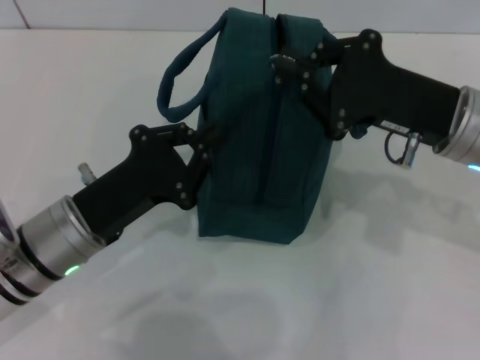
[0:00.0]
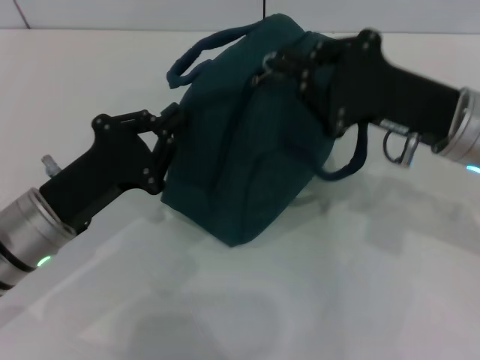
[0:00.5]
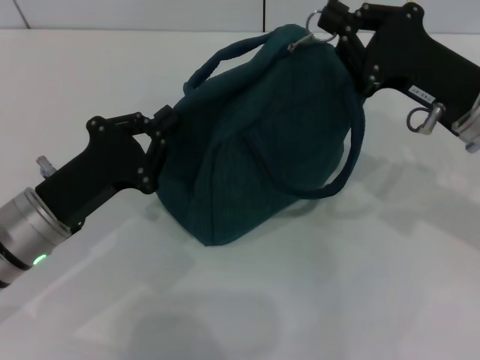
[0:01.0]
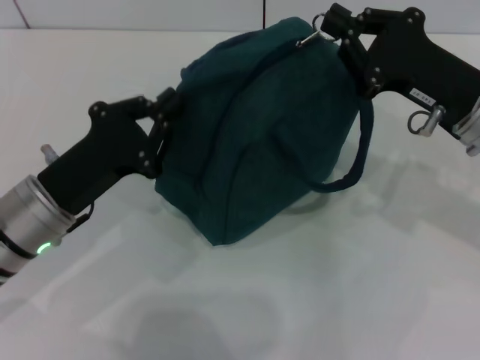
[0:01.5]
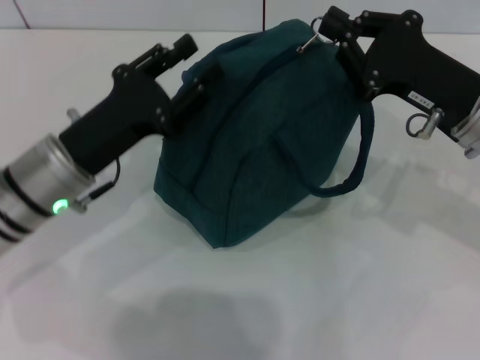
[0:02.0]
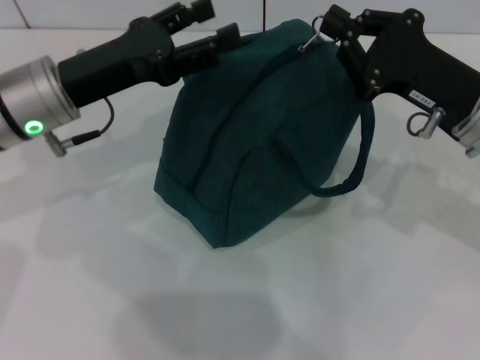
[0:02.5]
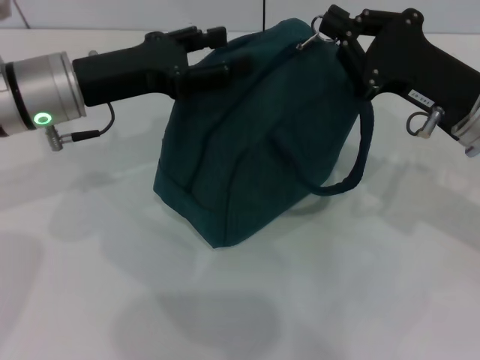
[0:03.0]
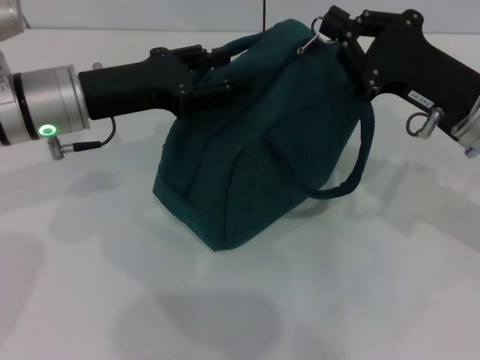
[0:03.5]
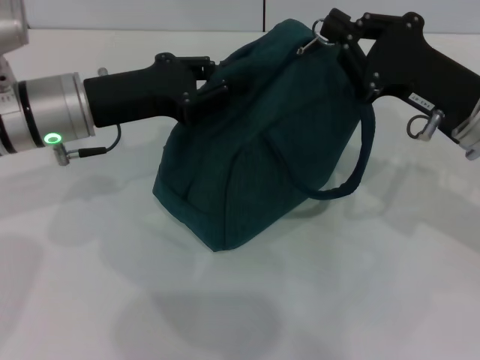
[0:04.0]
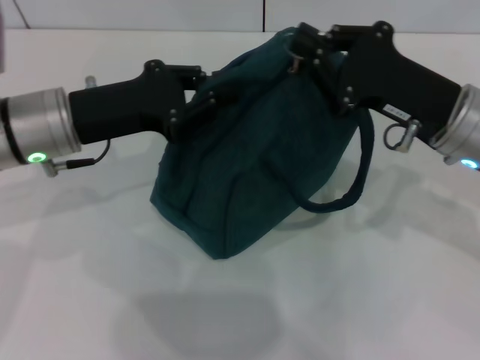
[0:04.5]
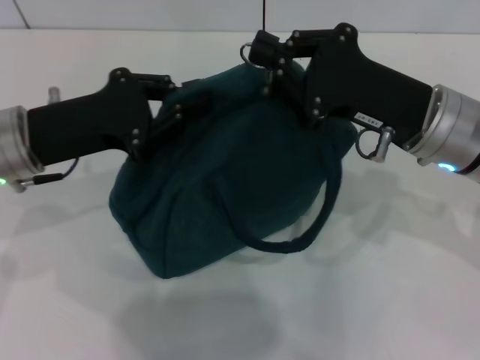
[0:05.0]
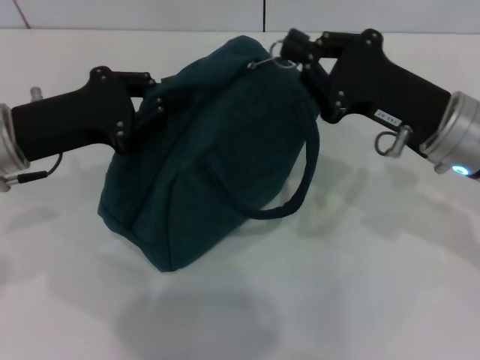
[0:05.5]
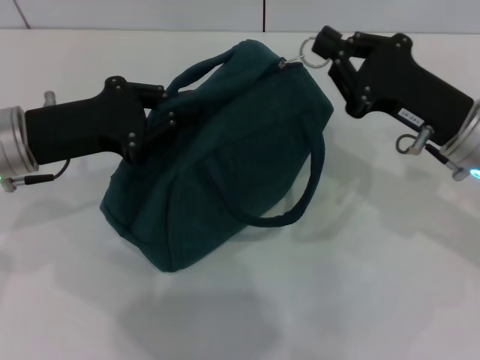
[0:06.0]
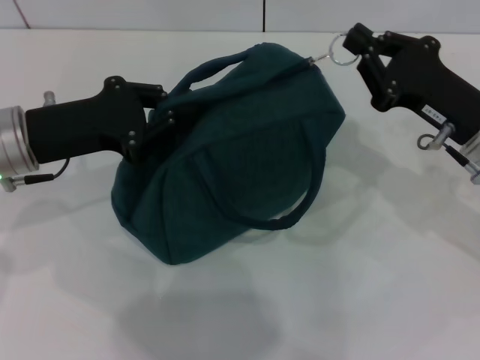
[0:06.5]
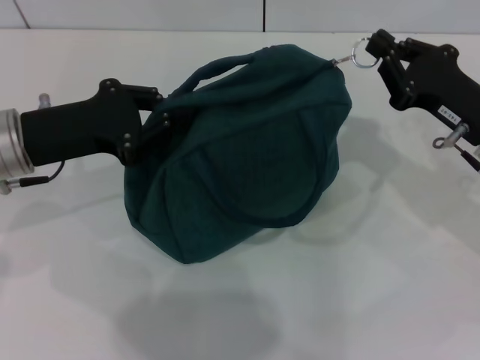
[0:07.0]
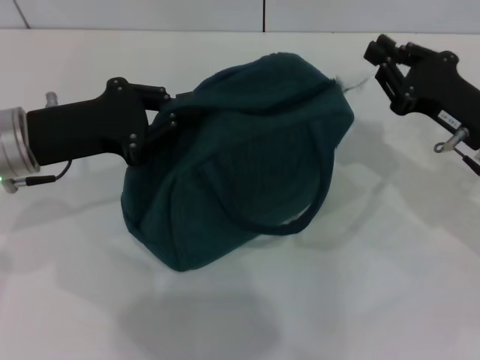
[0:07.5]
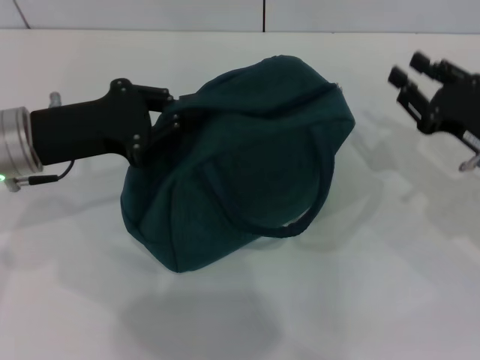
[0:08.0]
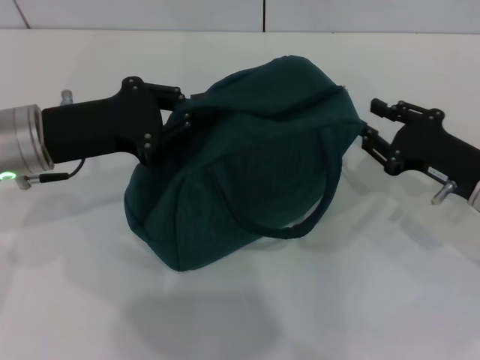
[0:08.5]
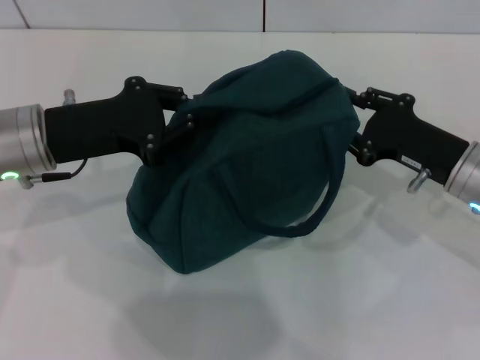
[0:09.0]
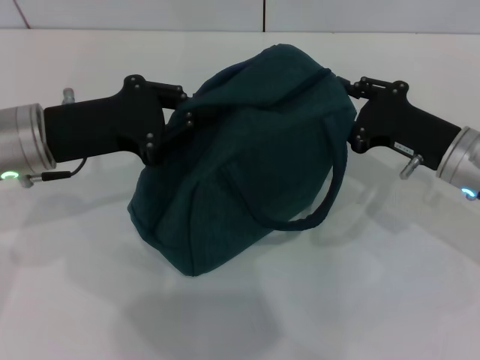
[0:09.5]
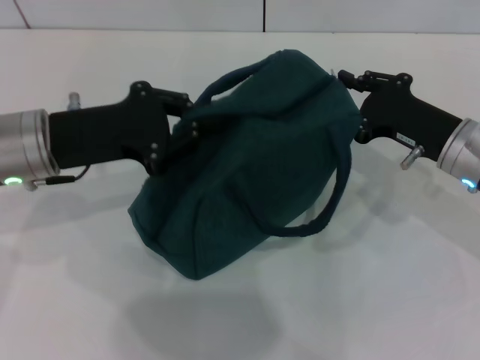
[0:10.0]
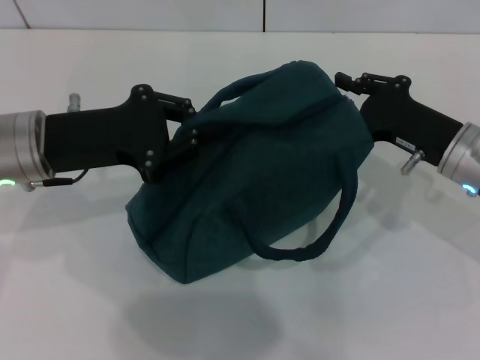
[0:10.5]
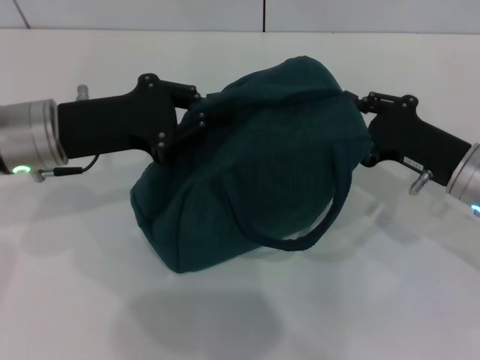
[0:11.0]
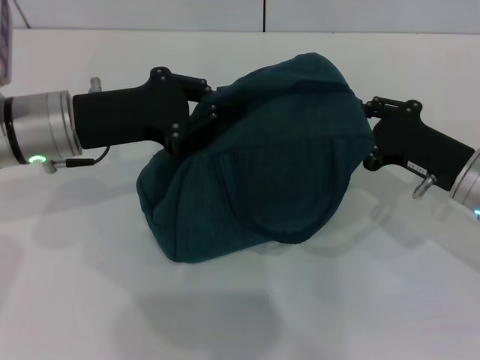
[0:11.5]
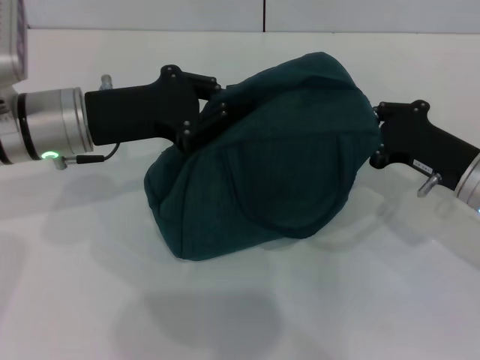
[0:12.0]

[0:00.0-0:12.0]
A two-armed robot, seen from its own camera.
2.0 to 4.0 s: The left gripper shifts roughly 5 cm forward, and opens and closes again.
4.0 to 6.0 s: The left gripper ends up roughly 5 cm from where it was.
6.0 to 8.0 s: The right gripper shifts some 5 cm to the right, and opens.
8.0 to 10.0 s: The right gripper moves to the left, roughly 5 cm.
10.0 to 12.0 s: The grippers make only small movements.

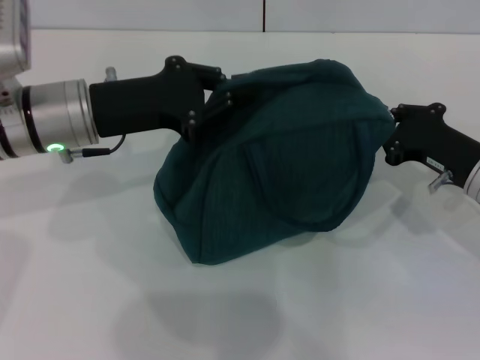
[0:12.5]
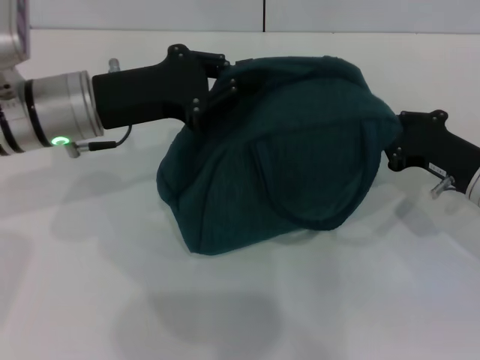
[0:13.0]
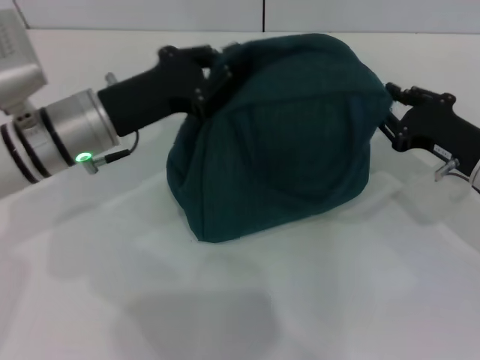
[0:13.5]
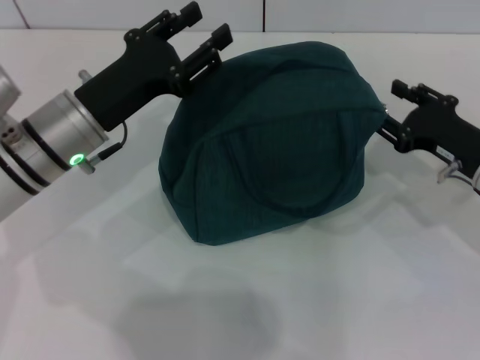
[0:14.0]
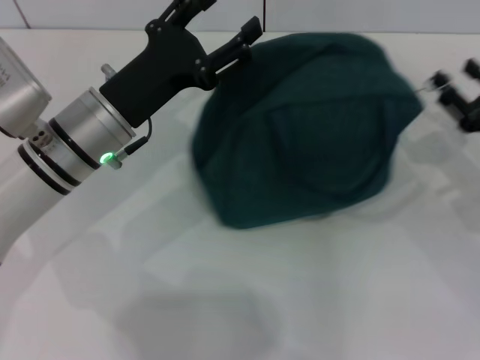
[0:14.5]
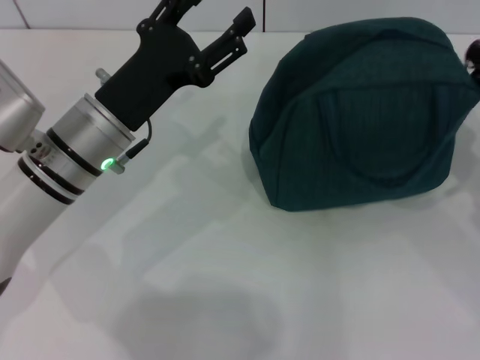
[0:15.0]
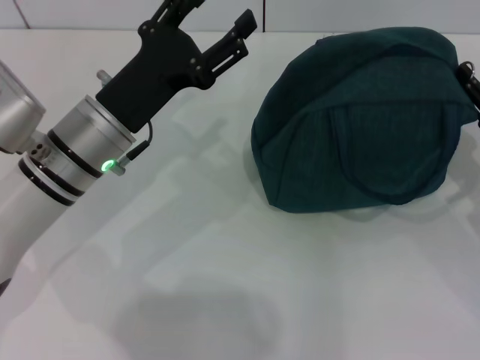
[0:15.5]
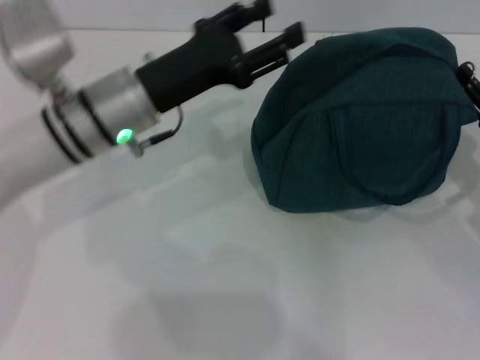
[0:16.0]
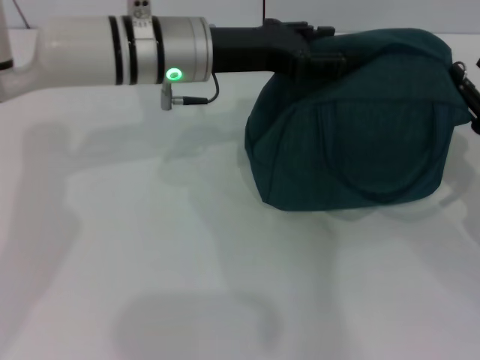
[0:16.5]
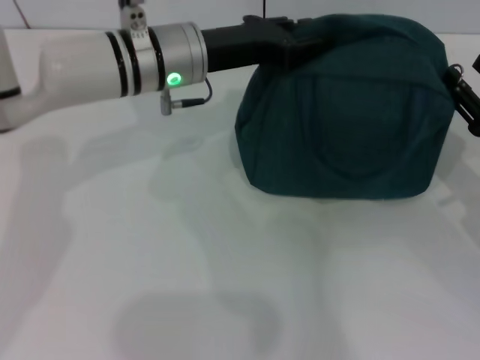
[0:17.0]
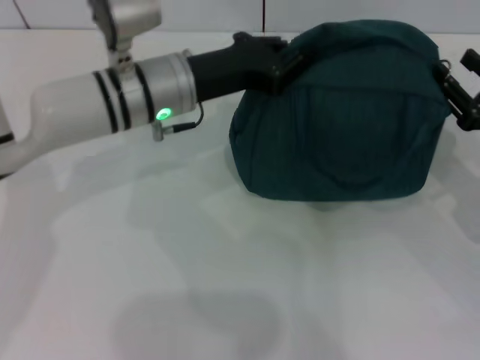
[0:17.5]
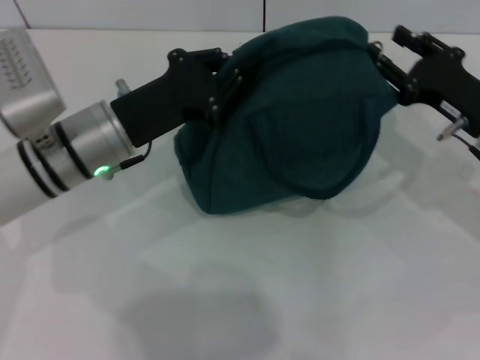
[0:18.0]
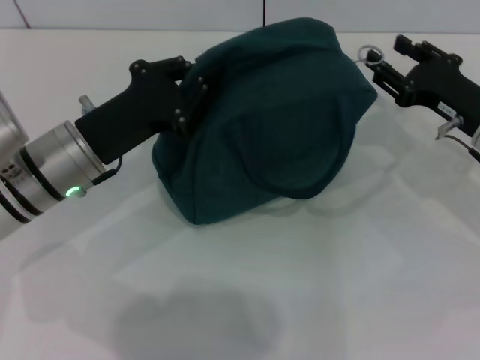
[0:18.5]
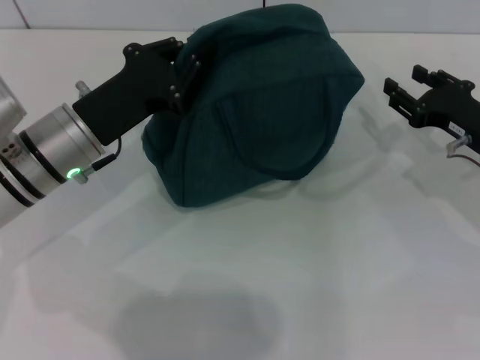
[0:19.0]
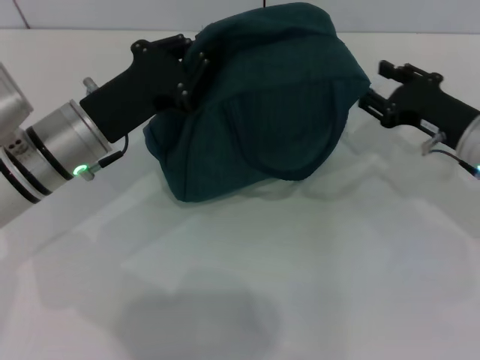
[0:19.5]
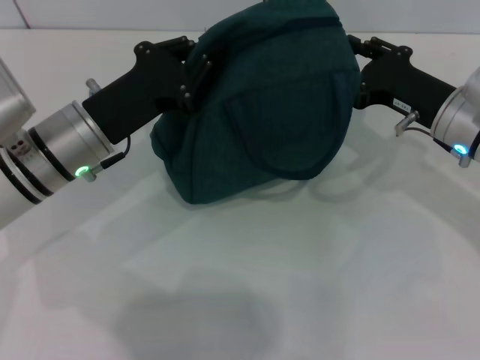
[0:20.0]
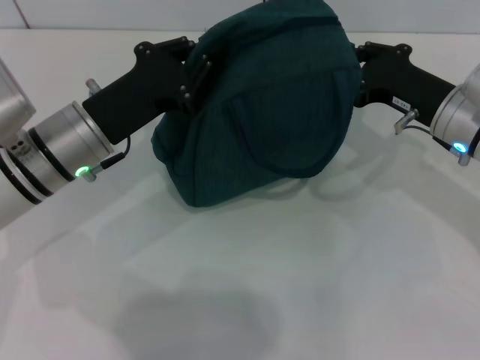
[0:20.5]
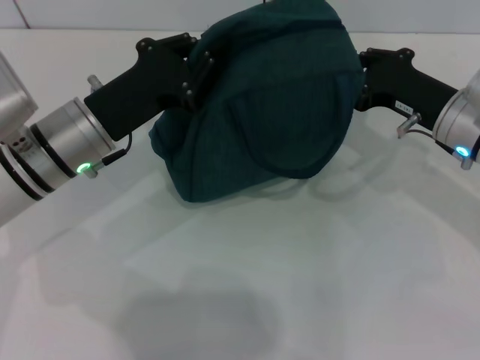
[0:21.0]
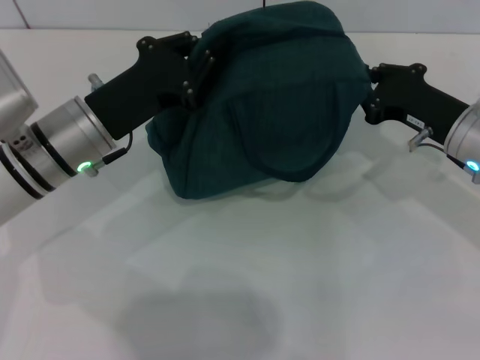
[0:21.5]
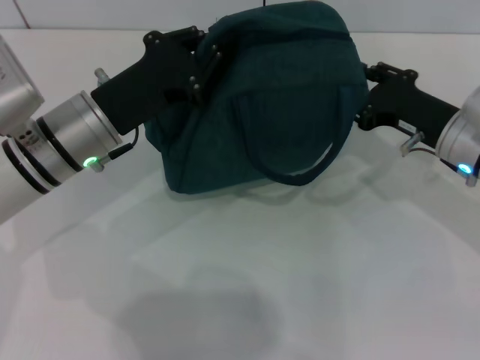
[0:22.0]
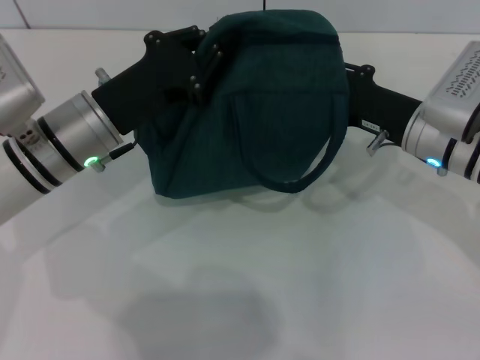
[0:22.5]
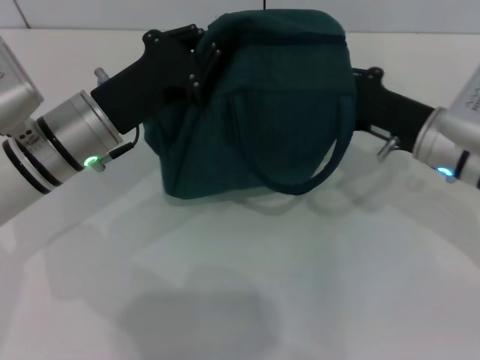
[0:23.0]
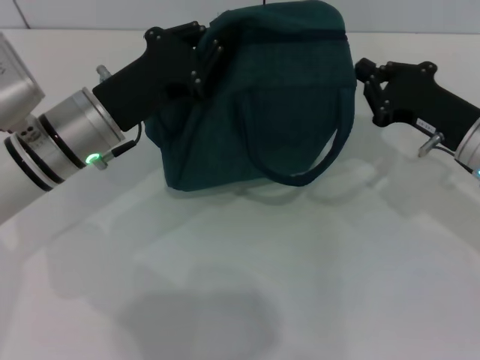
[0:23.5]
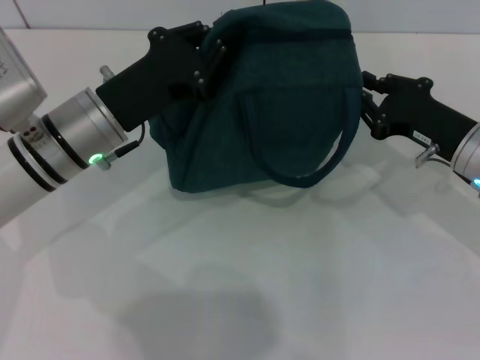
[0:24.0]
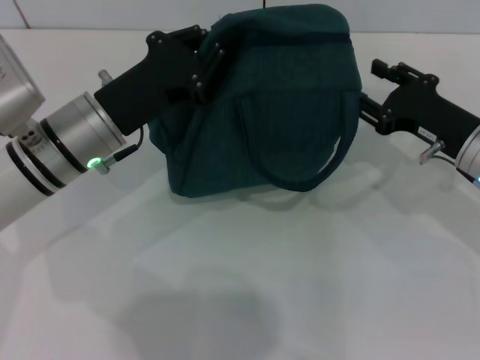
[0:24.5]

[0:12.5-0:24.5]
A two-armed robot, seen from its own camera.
Step, 14.0 to 18.5 s: Zip up the lunch bag with your right hand.
12.5 to 14.5 s: The right gripper shifts some 5 cm to the right, and opens. The left gripper opens its fingers.
14.5 to 16.5 s: The left gripper travels forward, to the right and upward by roughly 10 cm.
16.5 to 18.5 s: The left gripper travels backward, to the left and downward by roughly 15 cm, and closes up. The right gripper travels to the left and forward by approximately 10 cm.
18.5 to 20.5 s: The grippers stay close to where they were, moving slightly.
20.5 to 22.5 s: The grippers stay close to where they were, moving slightly.
22.5 to 24.5 s: The right gripper is displaced to the right by roughly 5 cm, and closes, then opens again.

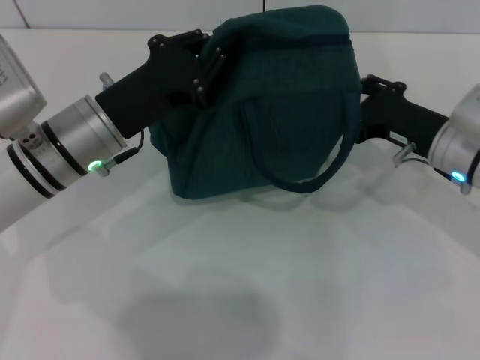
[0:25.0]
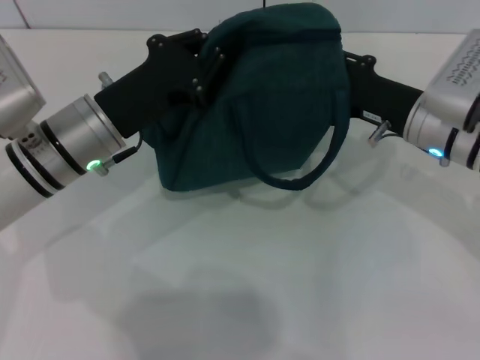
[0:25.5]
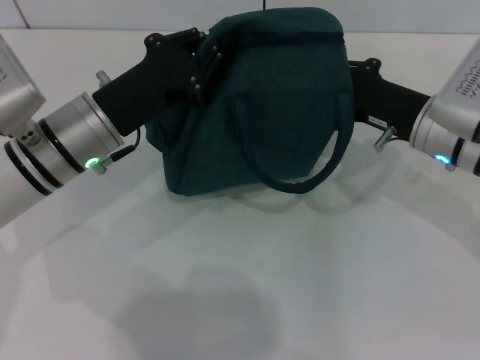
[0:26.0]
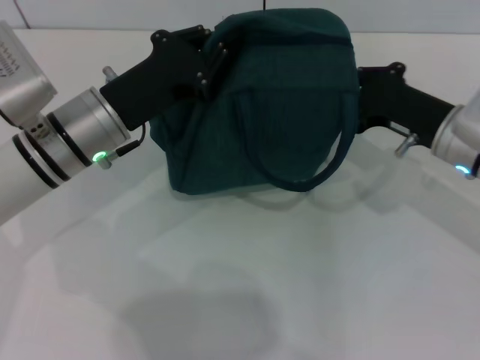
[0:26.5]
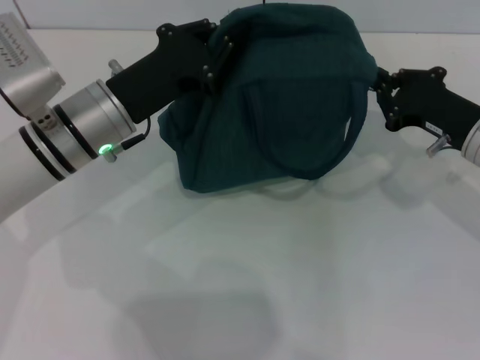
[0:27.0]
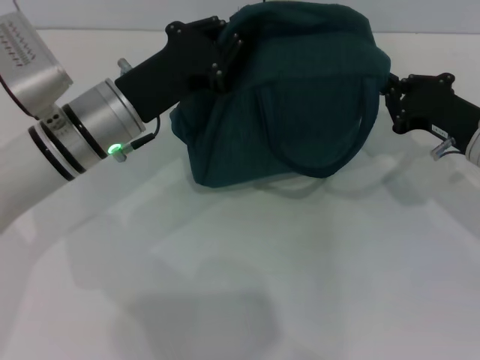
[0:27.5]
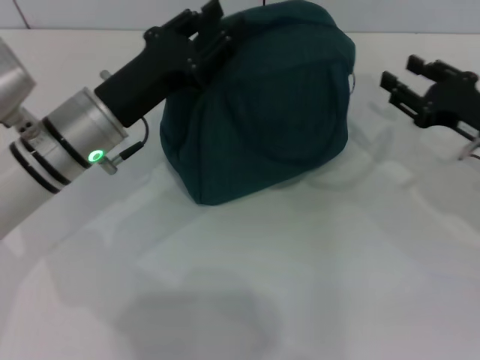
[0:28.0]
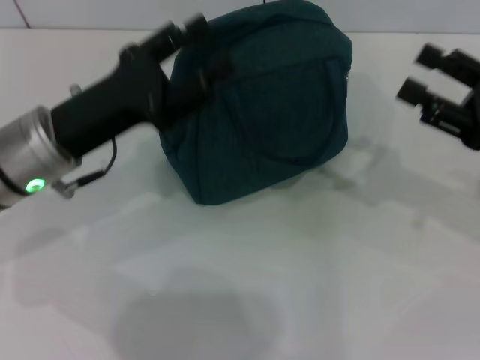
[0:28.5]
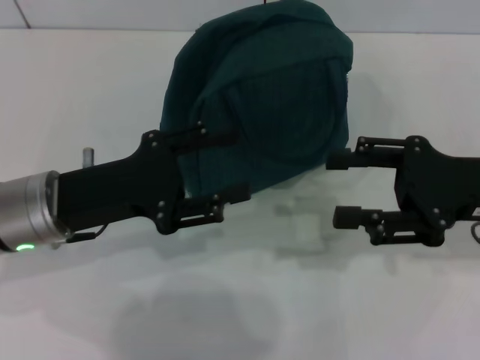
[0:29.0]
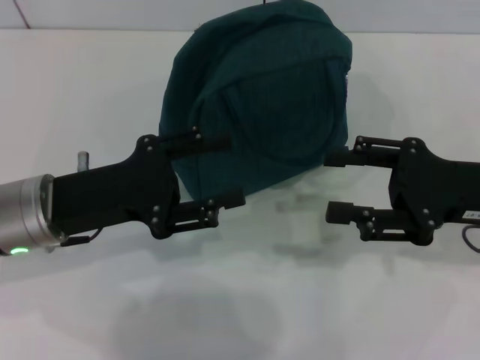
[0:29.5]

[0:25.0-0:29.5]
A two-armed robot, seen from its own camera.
25.0 to 27.0 s: The right gripper closes up.
27.0 to 29.5 s: The right gripper heads backward and upward, covering about 10 cm, and opens its fingers; the left gripper travels backward by some 10 cm, and opens its fingers.
